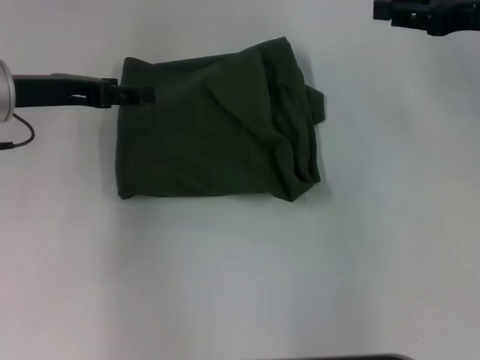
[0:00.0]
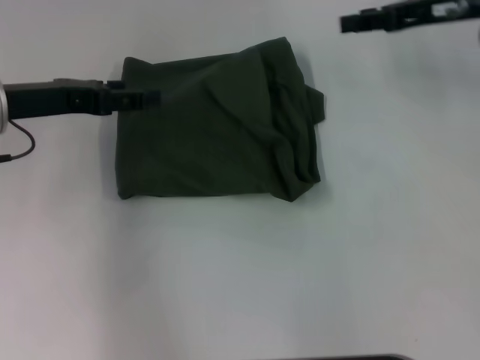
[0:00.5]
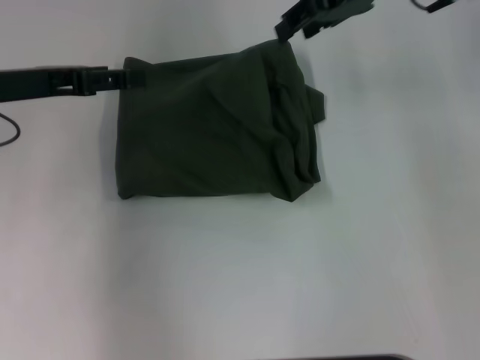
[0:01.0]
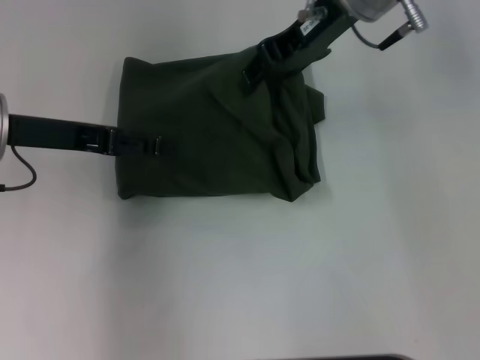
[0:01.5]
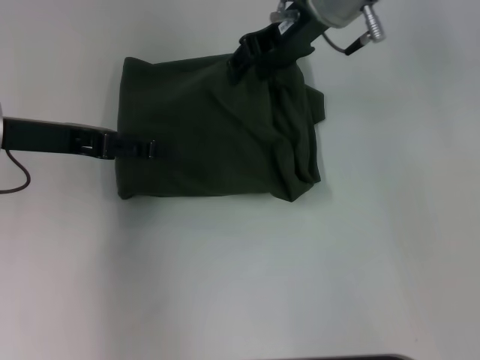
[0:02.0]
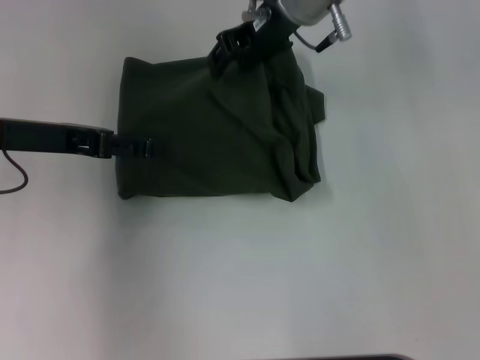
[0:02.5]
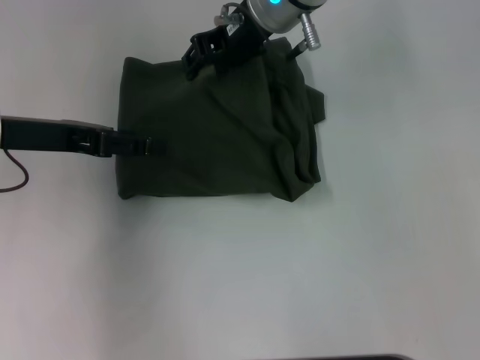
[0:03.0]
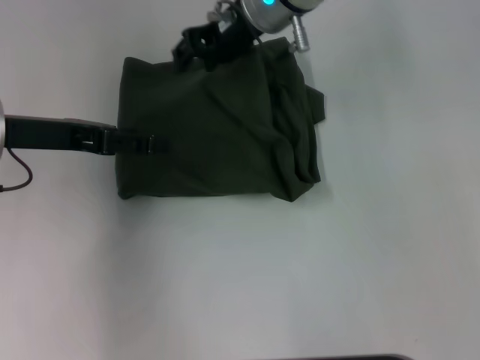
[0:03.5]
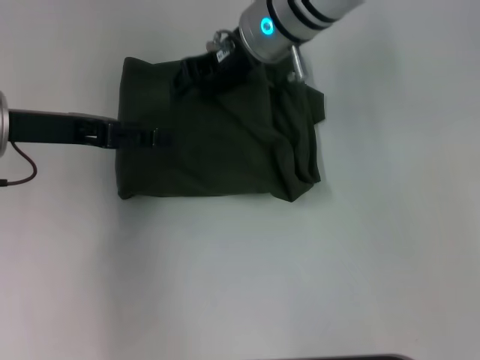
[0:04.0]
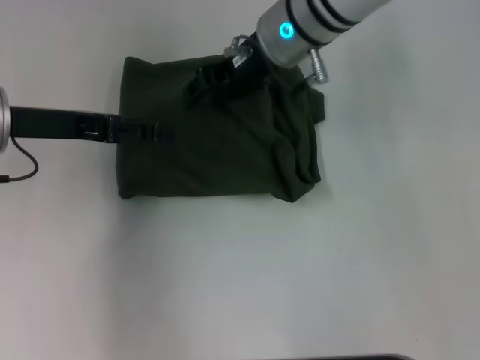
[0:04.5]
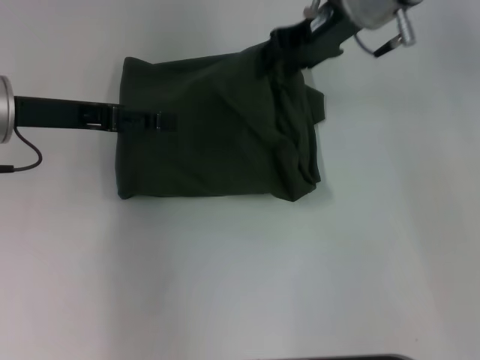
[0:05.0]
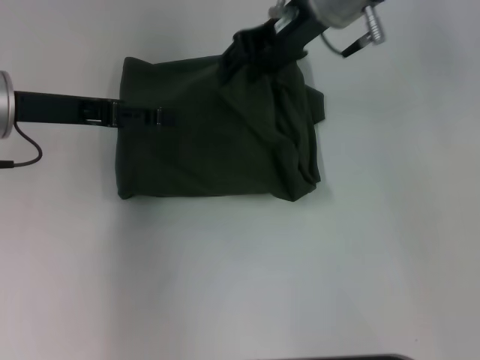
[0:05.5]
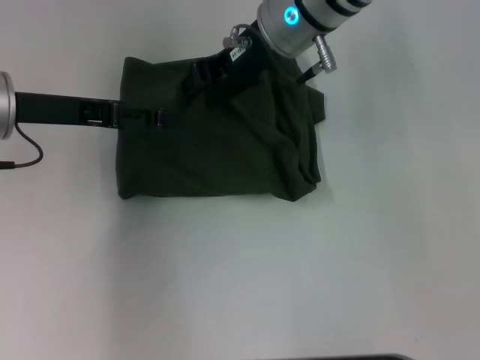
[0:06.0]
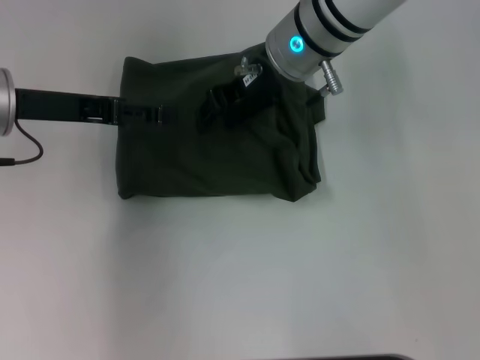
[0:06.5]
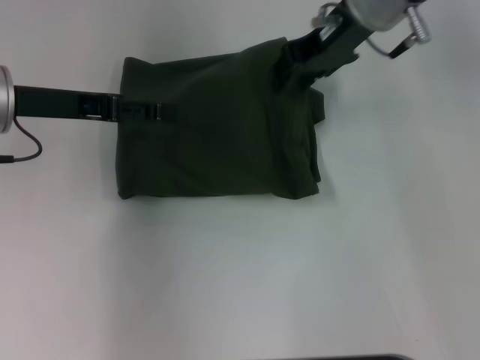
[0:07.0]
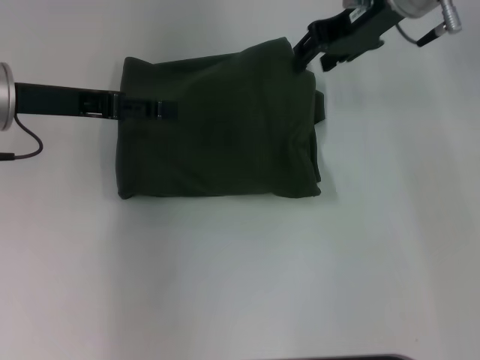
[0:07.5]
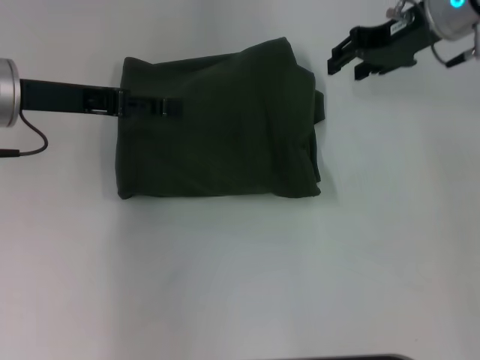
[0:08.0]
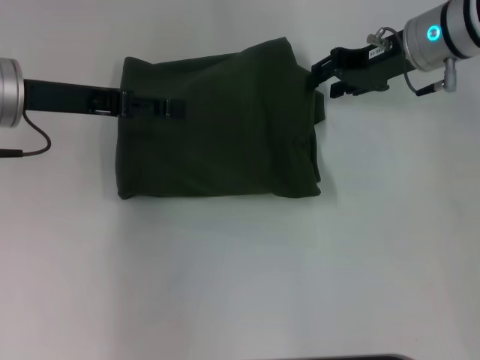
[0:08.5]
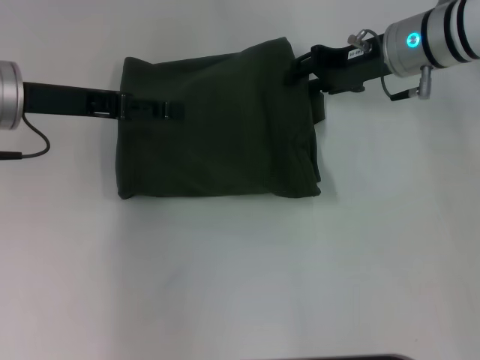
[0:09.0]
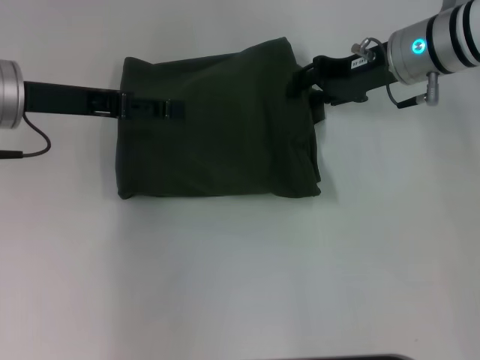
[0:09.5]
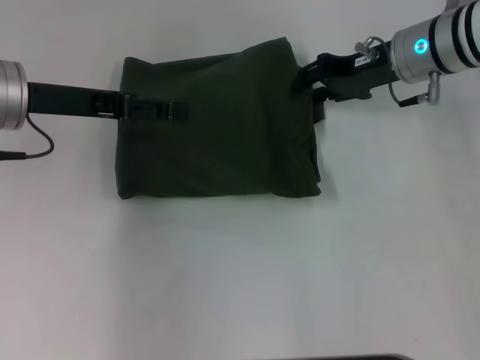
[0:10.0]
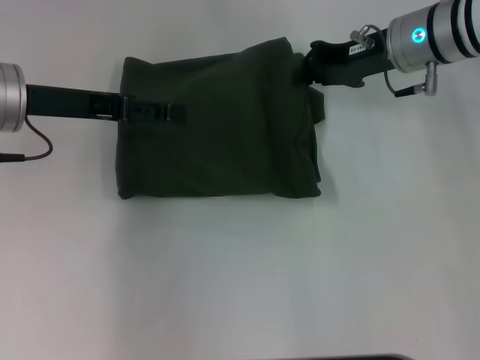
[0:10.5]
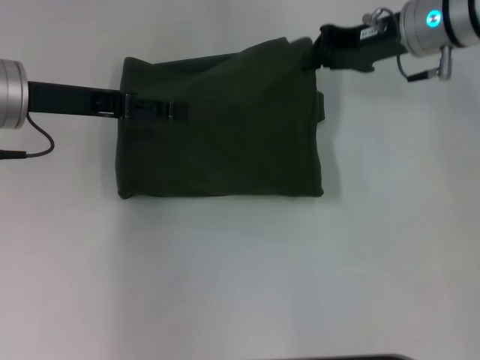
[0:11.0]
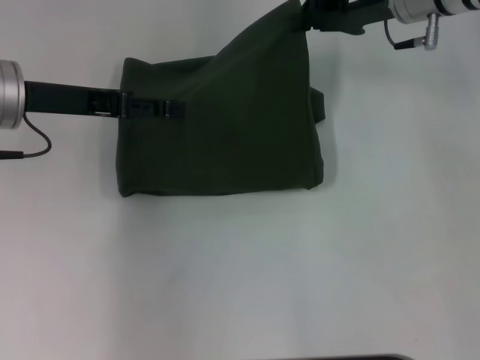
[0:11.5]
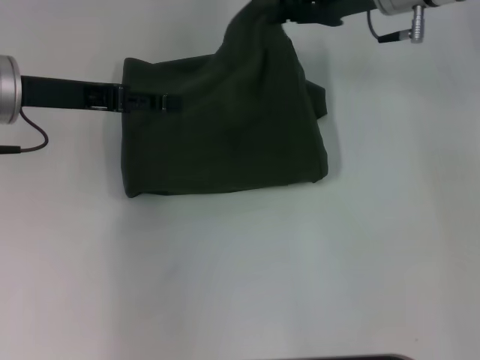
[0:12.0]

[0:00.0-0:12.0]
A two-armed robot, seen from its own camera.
0:00.0 to 0:02.0: The right gripper is displaced to the left by roughly 20 cm.
0:02.0 to 0:04.0: The right gripper is displaced to the left by about 5 cm.
0:04.0 to 0:06.0: The right gripper moves approximately 10 cm to the right and comes back.
0:06.0 to 0:08.0: The right gripper heads to the right, covering approximately 15 cm.
0:08.0 to 0:10.0: The right gripper is displaced downward by approximately 5 cm.
0:10.0 to 0:12.0: The right gripper goes some 5 cm upward, and closes its fingers.

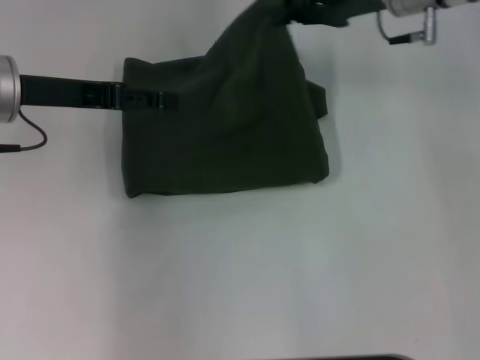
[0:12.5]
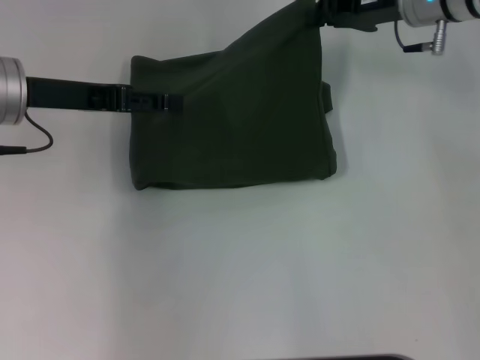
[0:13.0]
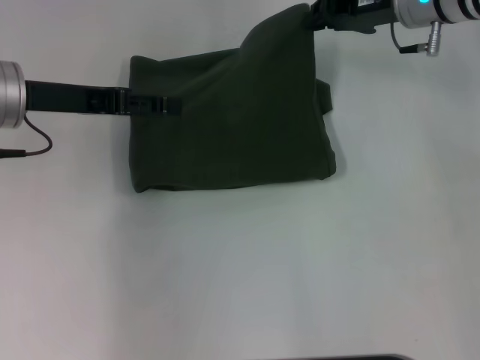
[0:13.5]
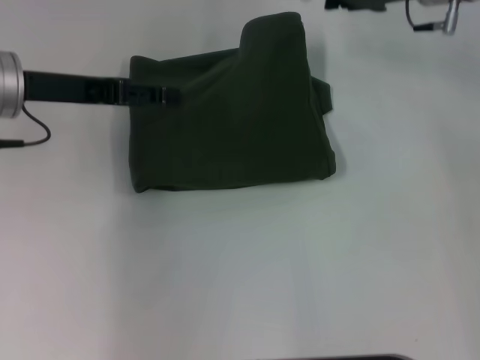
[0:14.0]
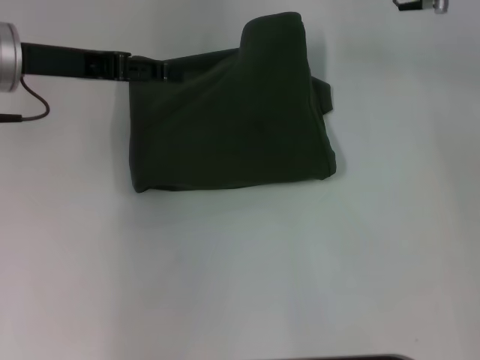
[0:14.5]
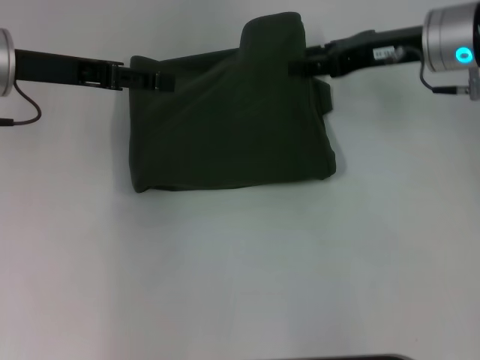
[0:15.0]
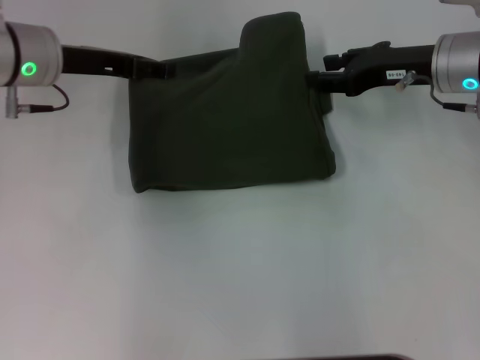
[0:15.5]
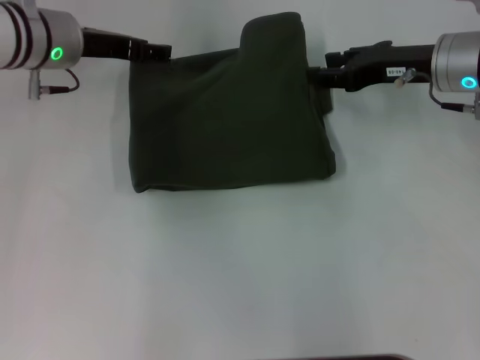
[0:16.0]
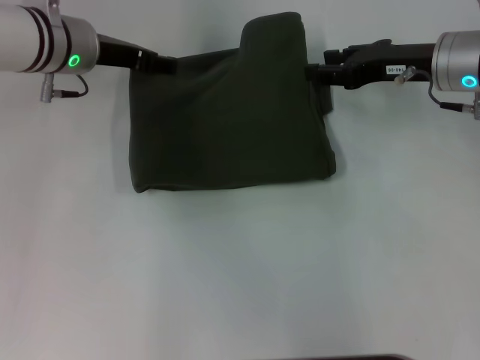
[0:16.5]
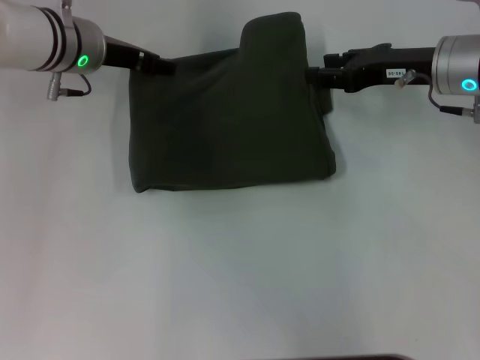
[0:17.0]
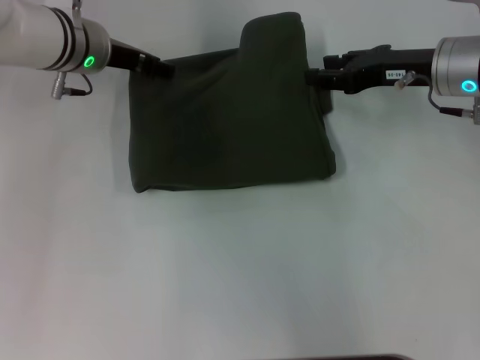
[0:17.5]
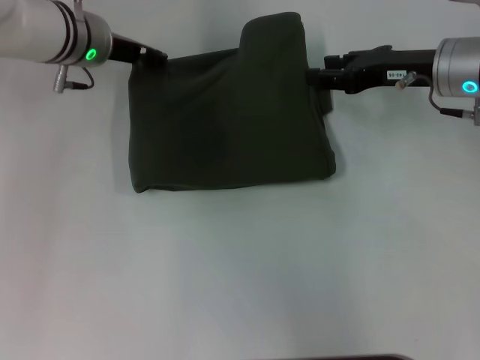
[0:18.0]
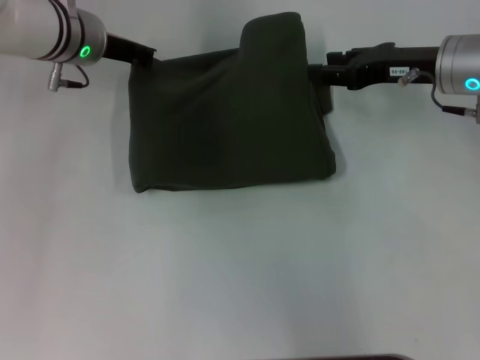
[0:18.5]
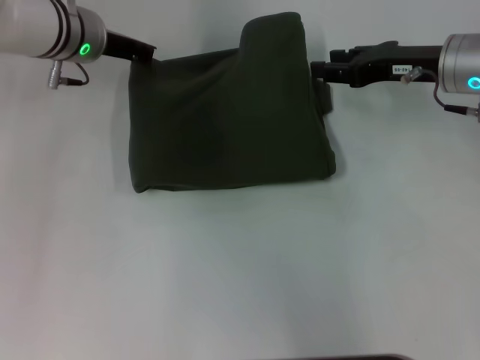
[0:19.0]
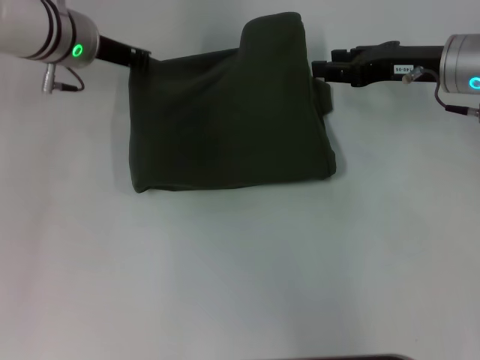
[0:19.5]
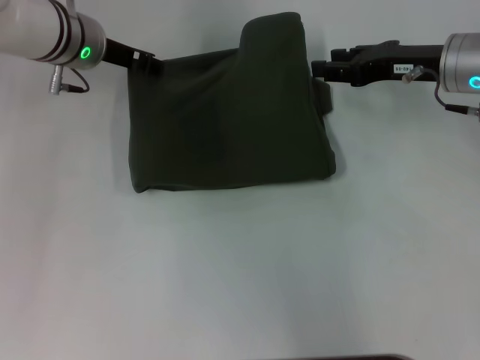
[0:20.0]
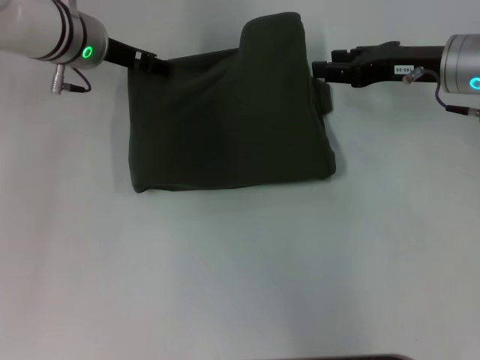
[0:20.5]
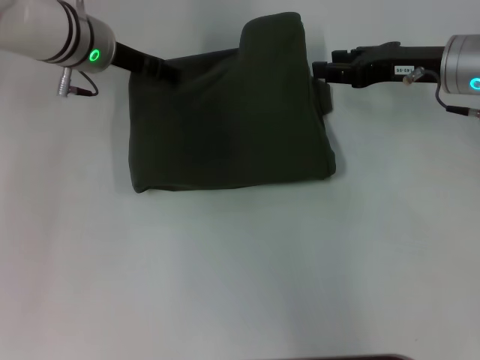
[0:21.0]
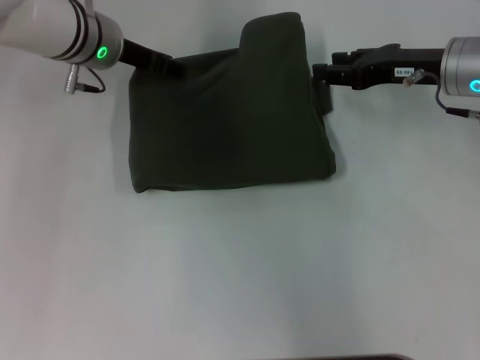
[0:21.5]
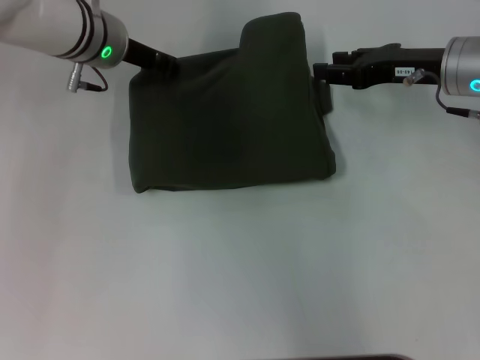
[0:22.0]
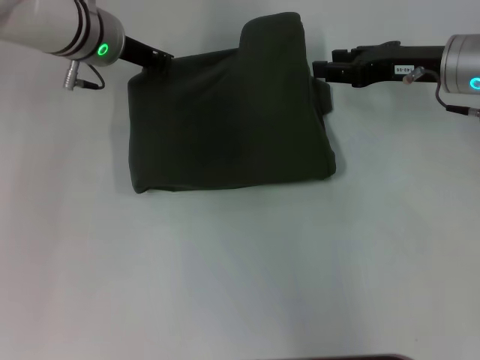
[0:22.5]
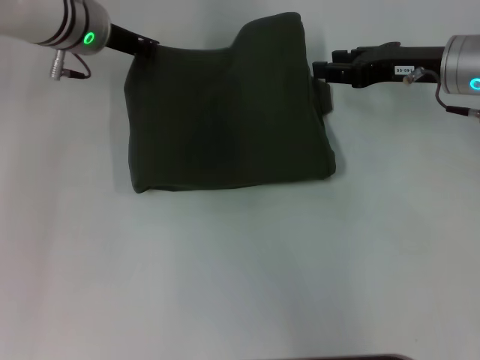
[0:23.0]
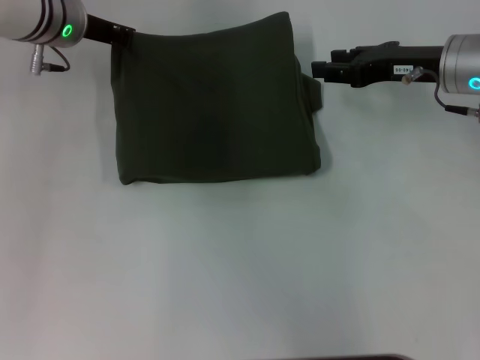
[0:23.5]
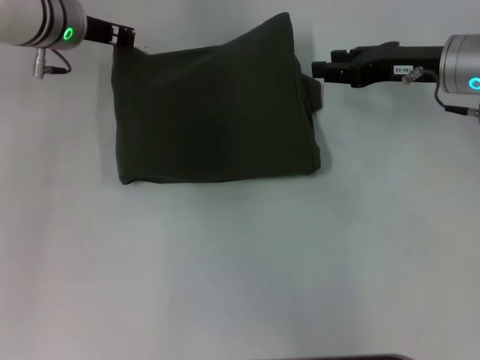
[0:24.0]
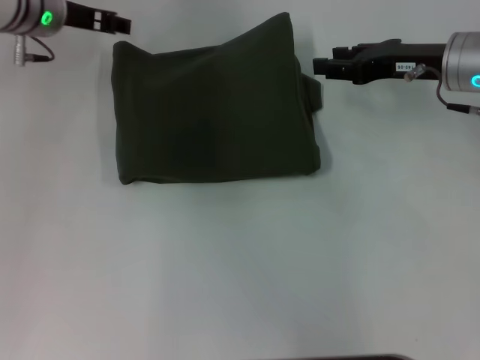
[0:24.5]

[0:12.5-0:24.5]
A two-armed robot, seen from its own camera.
0:12.5 to 0:14.5: The right gripper opens its fingers.
0:14.5 to 0:16.5: The right gripper shifts some 10 cm downward and backward. The left gripper moves forward, downward and to the right, approximately 10 cm.
0:16.5 to 0:18.5: The left gripper closes up.
0:18.5 to 0:20.5: The left gripper opens.
0:20.5 to 0:22.5: The left gripper closes its fingers.
0:22.5 to 0:24.5: The left gripper changes place by some 5 cm.

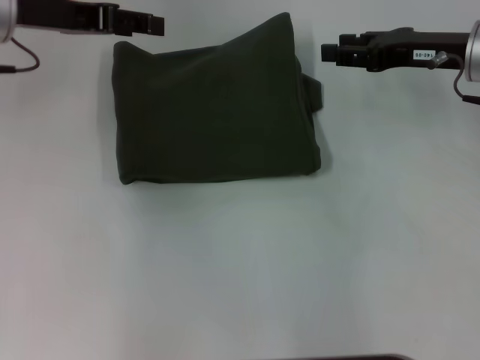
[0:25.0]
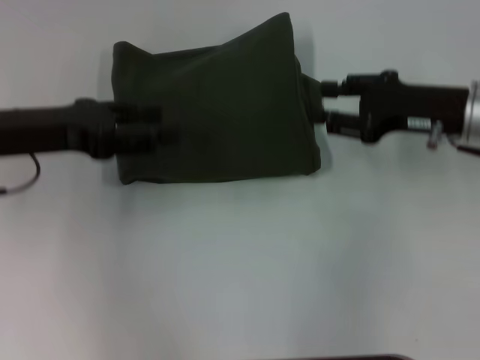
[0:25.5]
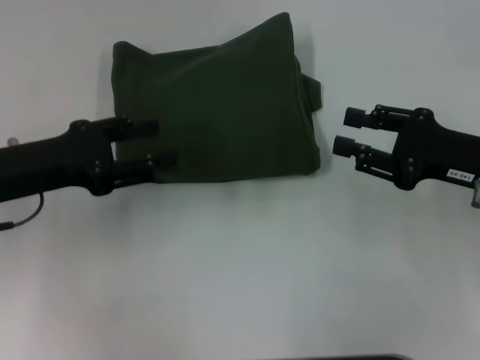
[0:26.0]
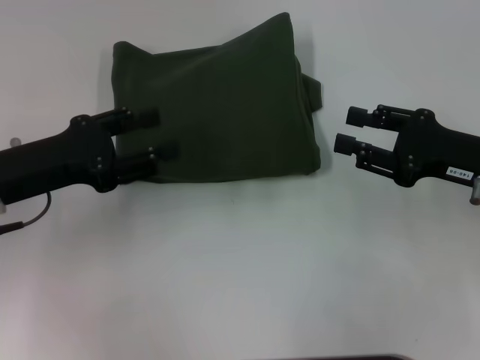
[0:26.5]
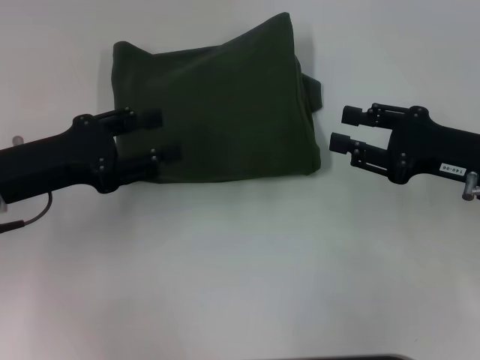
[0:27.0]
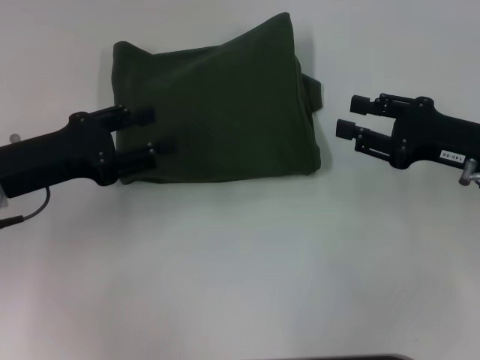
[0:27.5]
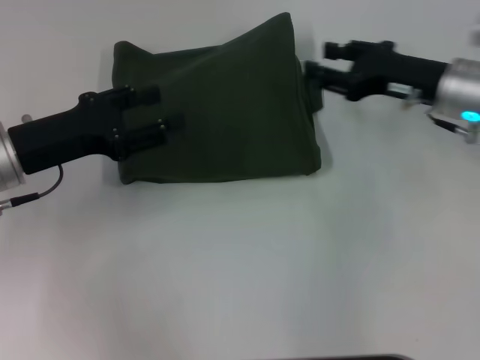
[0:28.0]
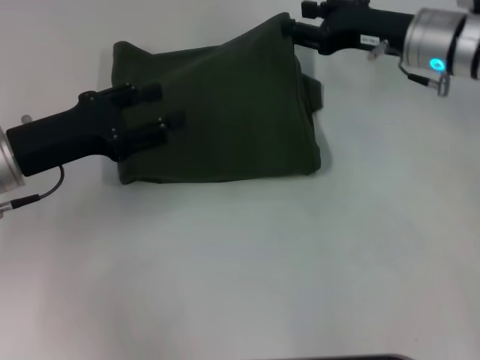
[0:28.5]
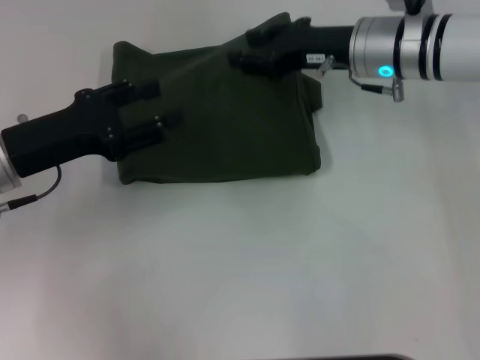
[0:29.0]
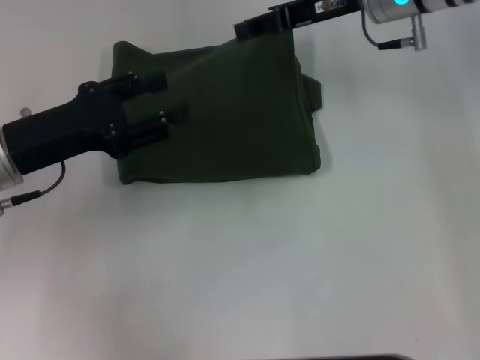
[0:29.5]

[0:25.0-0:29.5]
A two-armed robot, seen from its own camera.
0:25.0 to 0:27.0: The two grippers go about 15 cm backward and downward.
0:27.0 to 0:29.5: The right gripper is displaced forward, to the left and upward by roughly 20 cm.
